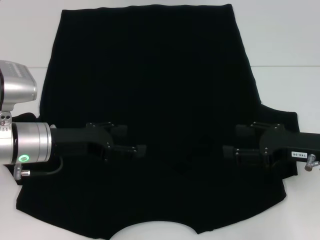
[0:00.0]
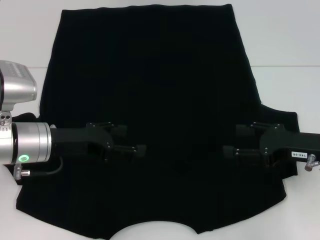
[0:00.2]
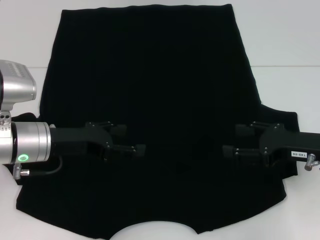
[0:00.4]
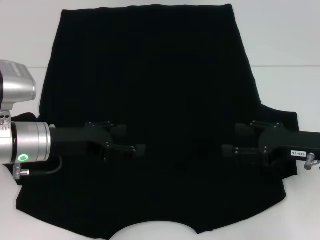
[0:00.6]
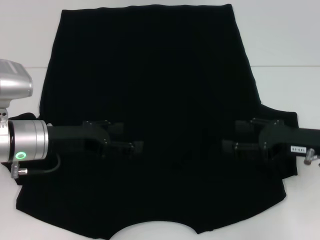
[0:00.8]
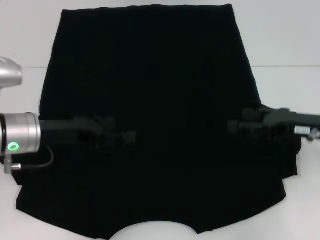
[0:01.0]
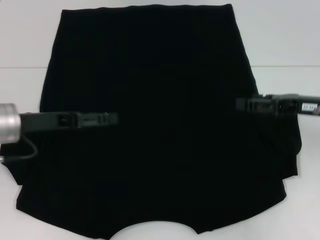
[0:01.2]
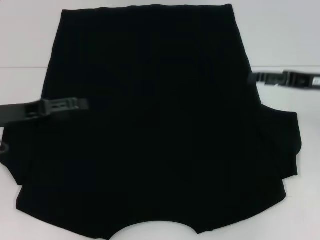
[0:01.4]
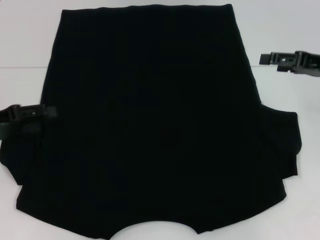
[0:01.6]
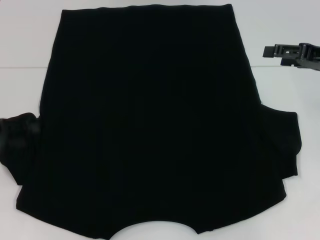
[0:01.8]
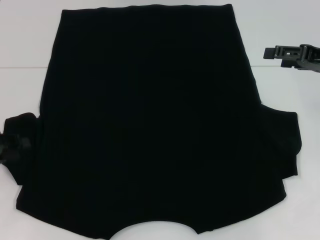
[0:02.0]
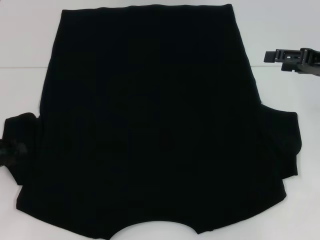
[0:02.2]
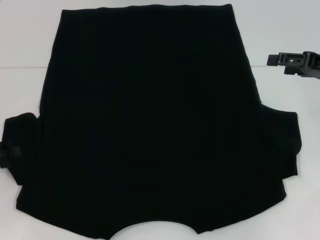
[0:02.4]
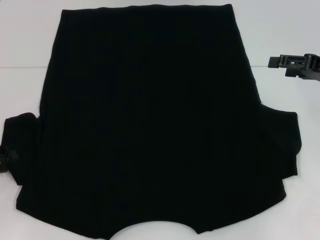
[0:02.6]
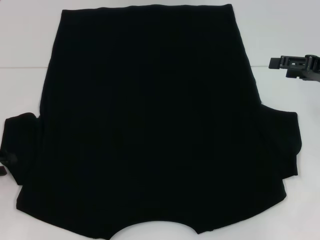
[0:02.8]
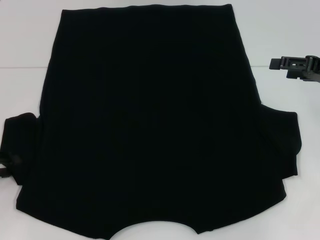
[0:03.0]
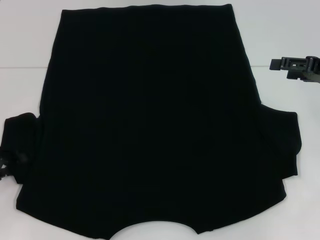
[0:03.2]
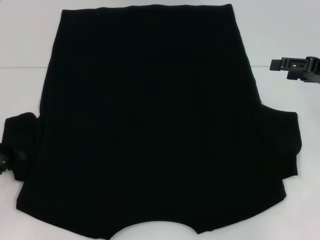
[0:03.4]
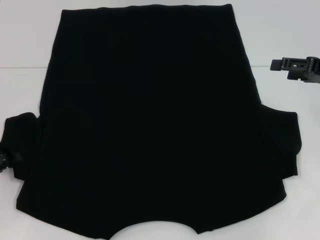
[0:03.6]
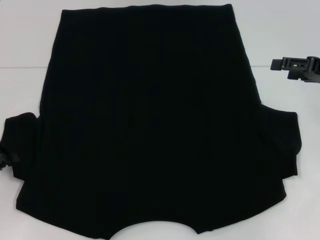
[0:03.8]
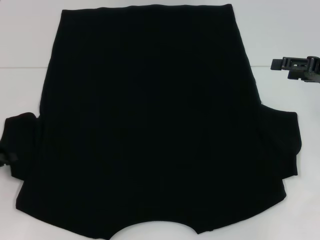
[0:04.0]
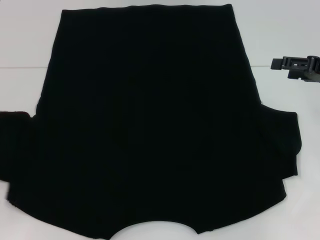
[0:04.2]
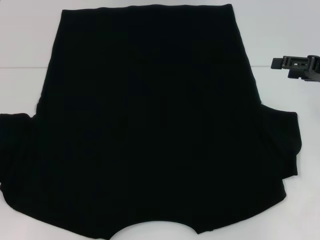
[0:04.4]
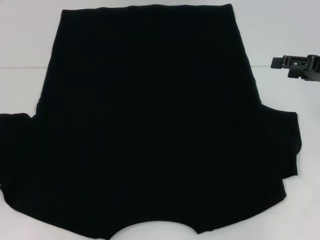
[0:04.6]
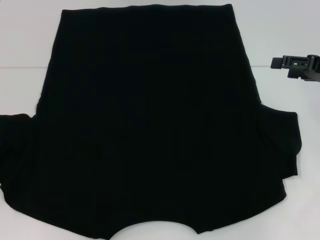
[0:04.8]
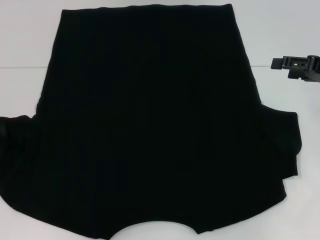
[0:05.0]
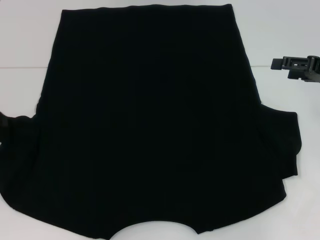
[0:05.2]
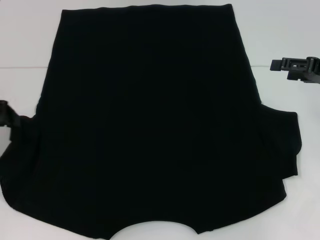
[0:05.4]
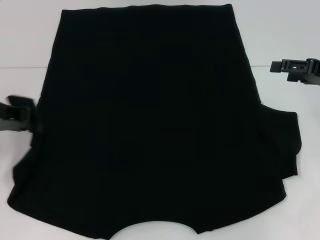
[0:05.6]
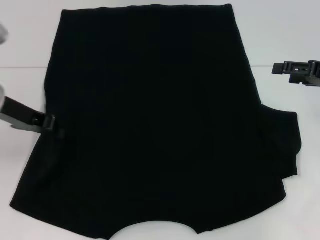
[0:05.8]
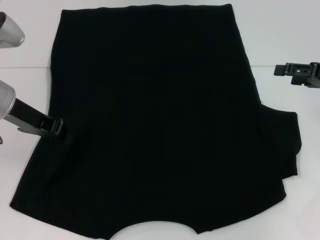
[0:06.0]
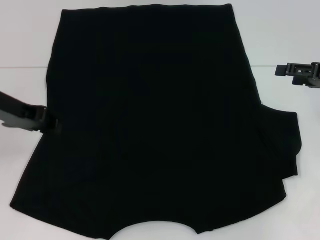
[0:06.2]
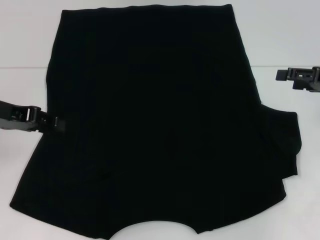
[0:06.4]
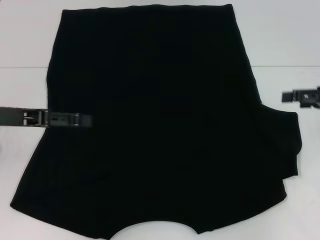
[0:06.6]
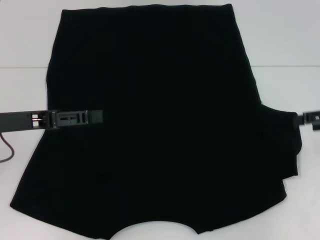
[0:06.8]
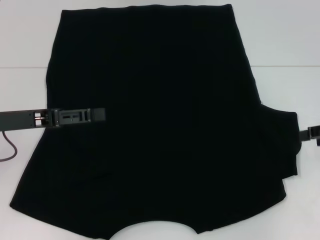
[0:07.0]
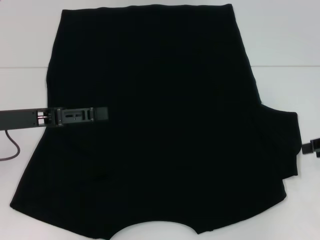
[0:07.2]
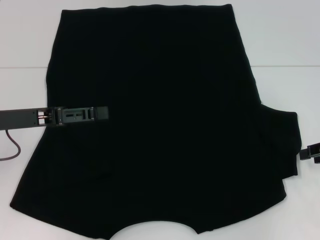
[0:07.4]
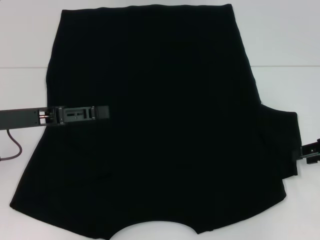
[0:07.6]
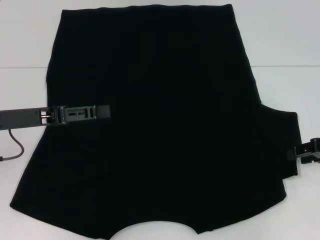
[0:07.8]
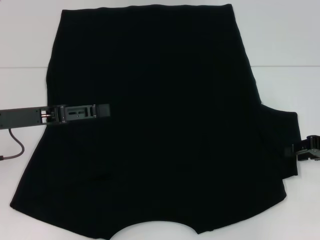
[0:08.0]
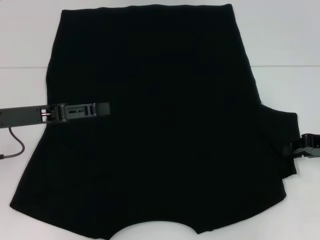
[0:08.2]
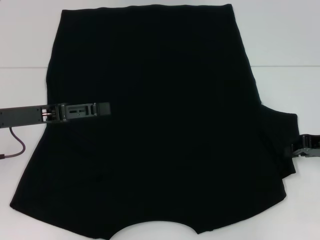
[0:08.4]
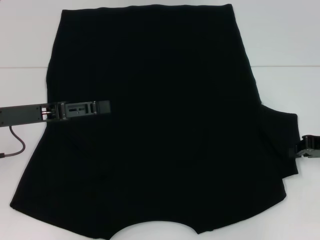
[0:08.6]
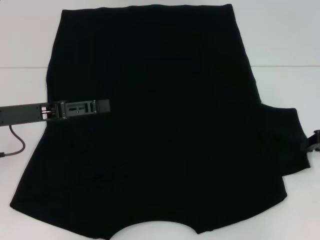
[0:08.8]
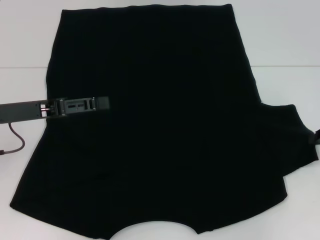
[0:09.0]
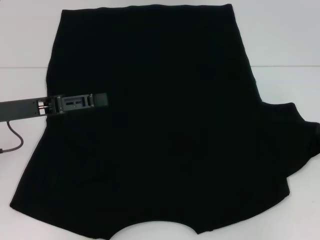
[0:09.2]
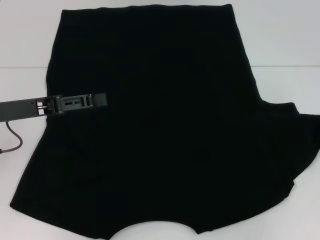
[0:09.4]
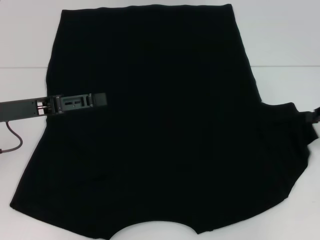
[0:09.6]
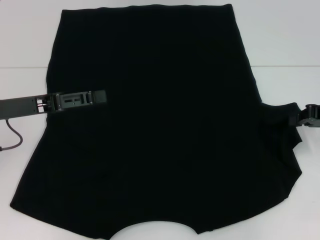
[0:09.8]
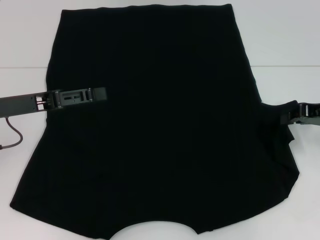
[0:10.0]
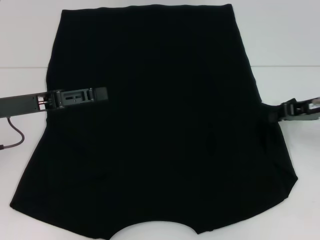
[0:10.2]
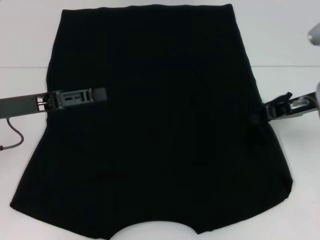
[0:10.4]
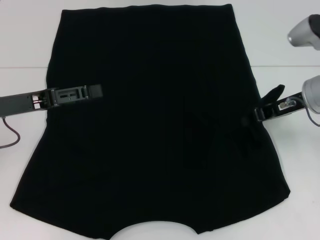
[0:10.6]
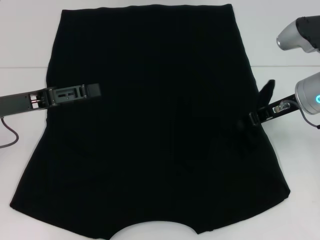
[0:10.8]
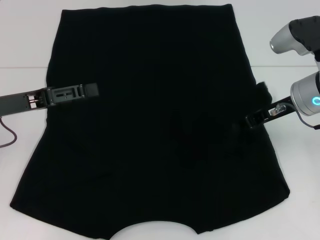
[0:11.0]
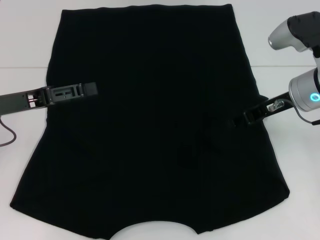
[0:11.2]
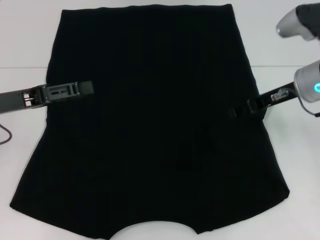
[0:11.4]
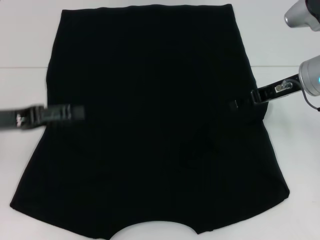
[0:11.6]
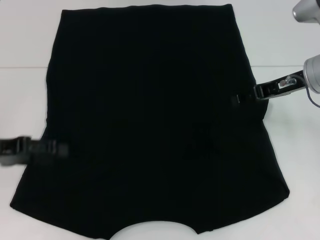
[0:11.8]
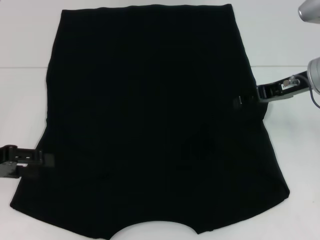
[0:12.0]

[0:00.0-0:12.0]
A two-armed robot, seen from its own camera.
Step, 0.0 to 6.0 s: Fold the bottom left sleeve with your left hand.
Step, 6.2 to 11.2 s: Fold the bottom right sleeve with your right hand.
0.0 to 1.6 s: The left gripper heads to the left, covering approximately 10 cm. Meanwhile the right gripper shifts roughly 10 cm forward and upward.
1.6 to 3.0 s: The left gripper shifts approximately 5 cm downward, and closes up.
3.0 to 4.4 s: The left gripper closes its fingers.
4.4 to 6.0 s: The left gripper travels to the right, upward and forward by about 20 cm.
6.0 to 7.6 s: The left gripper travels backward by approximately 5 cm, and opens its fingers, while the right gripper changes place by roughly 5 cm, and closes its fingers.
7.6 to 9.0 s: The right gripper closes.
9.0 to 10.4 s: The right gripper is displaced to the left by about 10 cm.
10.4 to 12.0 s: The right gripper opens its fingers. The left gripper travels to the left by approximately 5 cm.

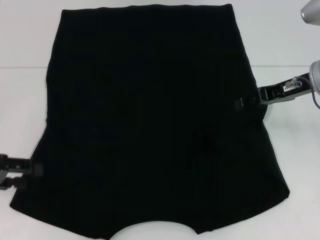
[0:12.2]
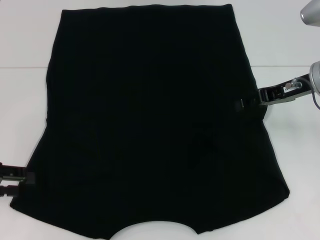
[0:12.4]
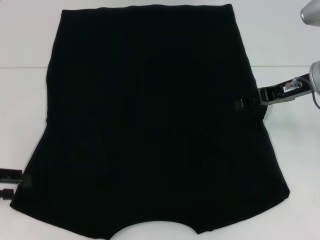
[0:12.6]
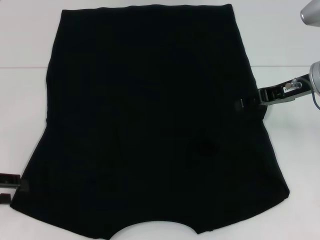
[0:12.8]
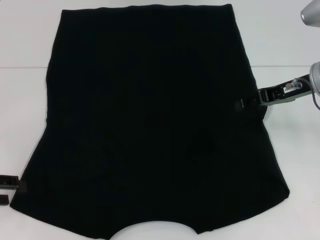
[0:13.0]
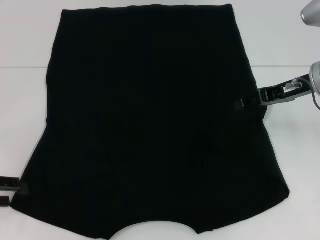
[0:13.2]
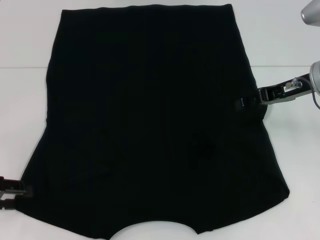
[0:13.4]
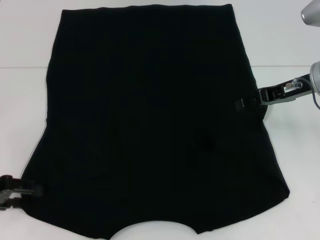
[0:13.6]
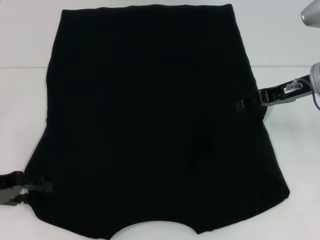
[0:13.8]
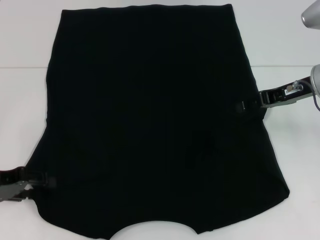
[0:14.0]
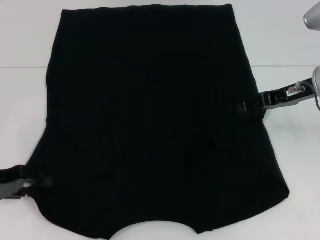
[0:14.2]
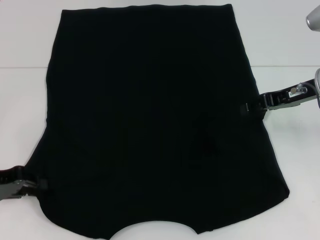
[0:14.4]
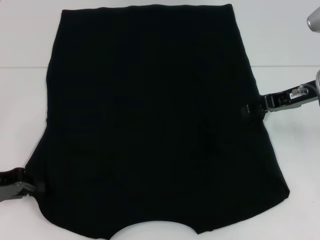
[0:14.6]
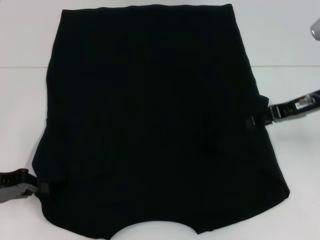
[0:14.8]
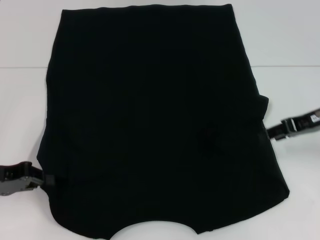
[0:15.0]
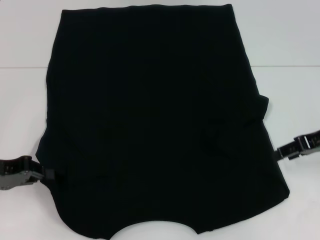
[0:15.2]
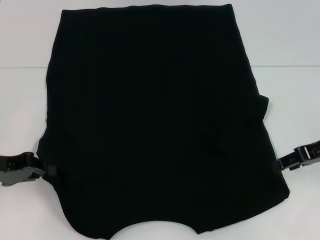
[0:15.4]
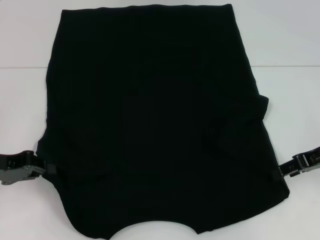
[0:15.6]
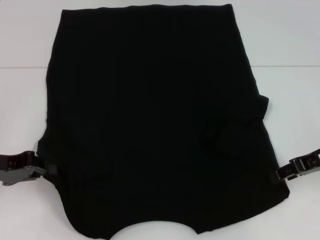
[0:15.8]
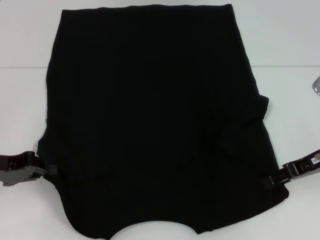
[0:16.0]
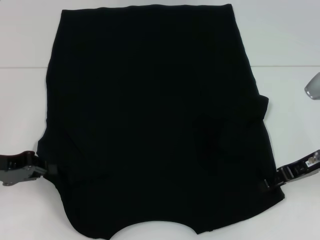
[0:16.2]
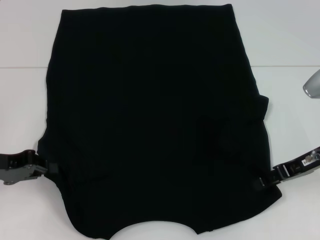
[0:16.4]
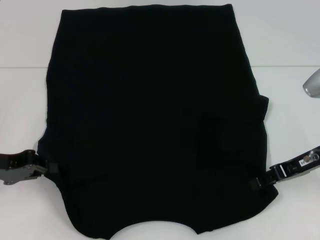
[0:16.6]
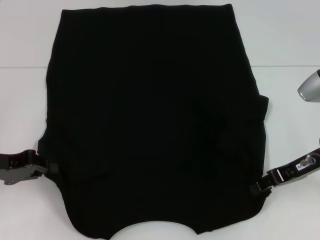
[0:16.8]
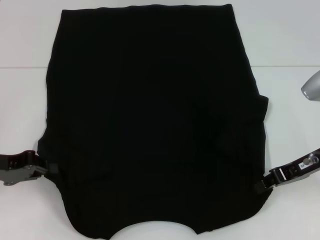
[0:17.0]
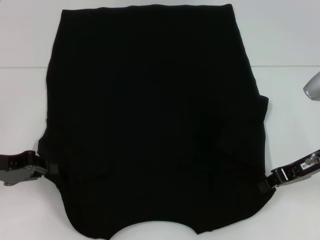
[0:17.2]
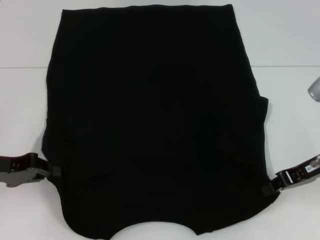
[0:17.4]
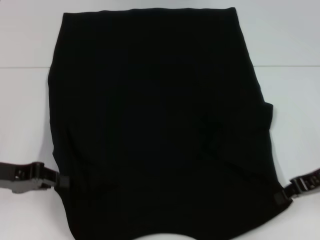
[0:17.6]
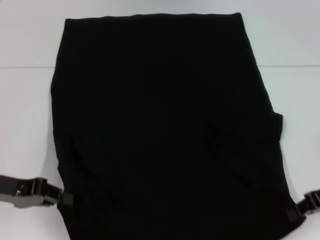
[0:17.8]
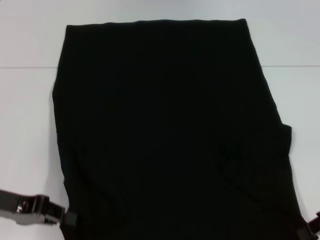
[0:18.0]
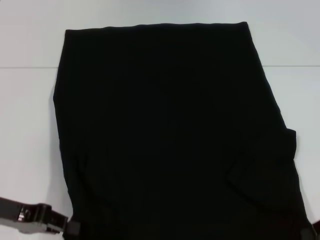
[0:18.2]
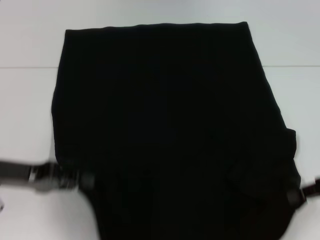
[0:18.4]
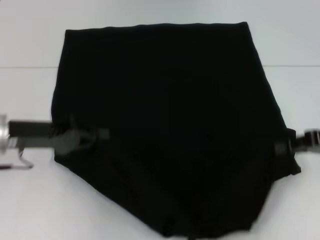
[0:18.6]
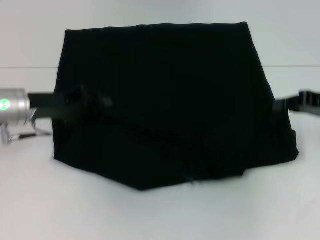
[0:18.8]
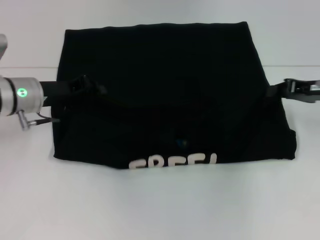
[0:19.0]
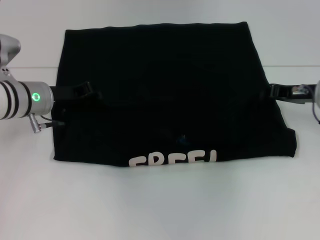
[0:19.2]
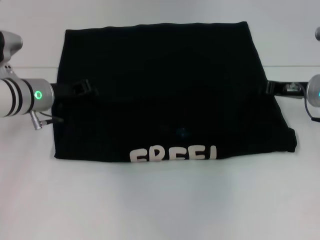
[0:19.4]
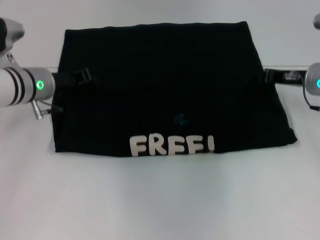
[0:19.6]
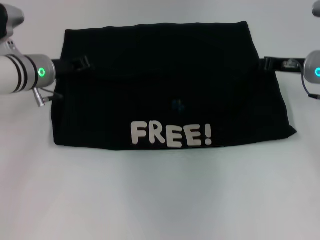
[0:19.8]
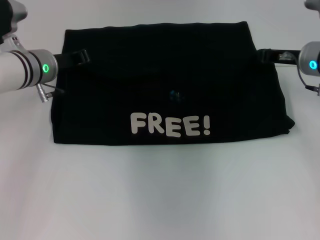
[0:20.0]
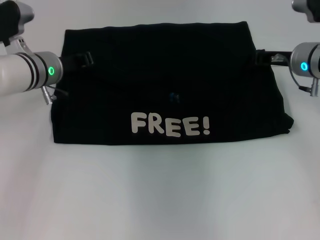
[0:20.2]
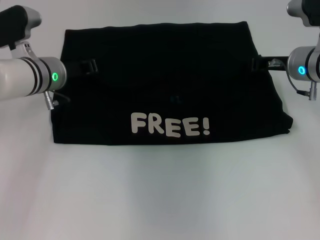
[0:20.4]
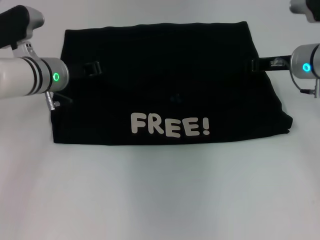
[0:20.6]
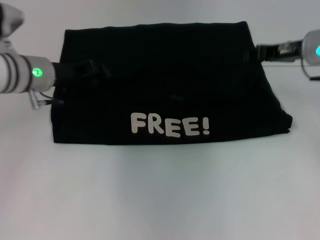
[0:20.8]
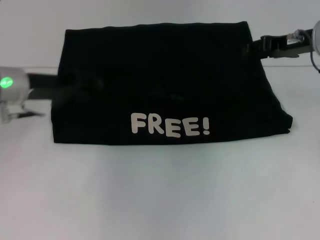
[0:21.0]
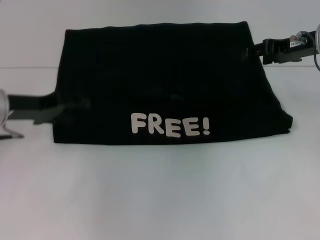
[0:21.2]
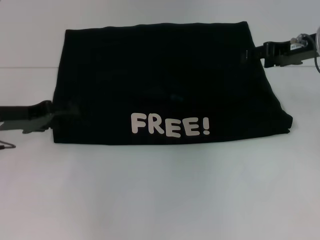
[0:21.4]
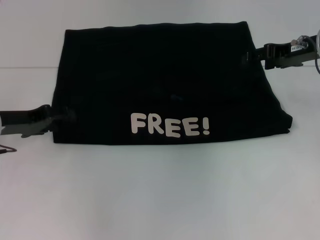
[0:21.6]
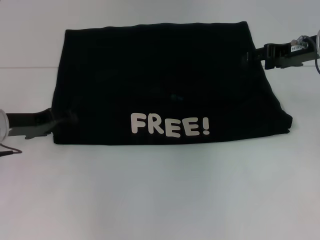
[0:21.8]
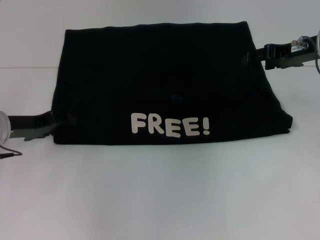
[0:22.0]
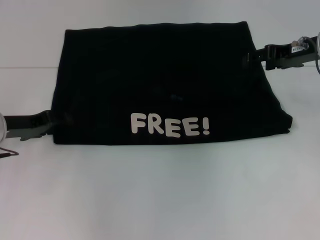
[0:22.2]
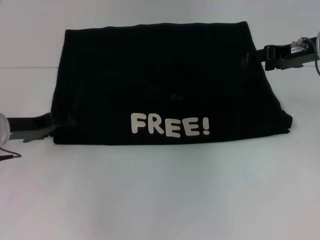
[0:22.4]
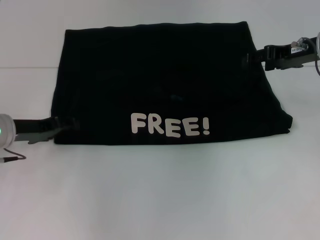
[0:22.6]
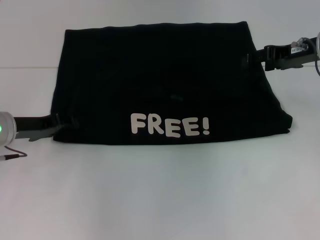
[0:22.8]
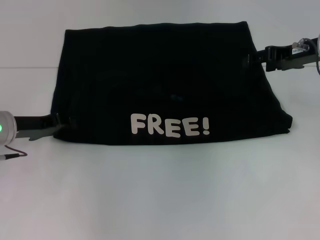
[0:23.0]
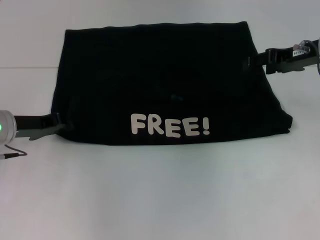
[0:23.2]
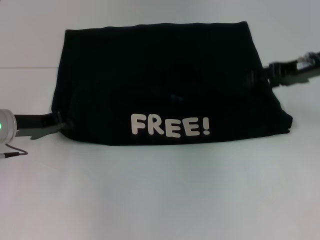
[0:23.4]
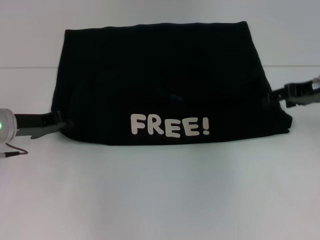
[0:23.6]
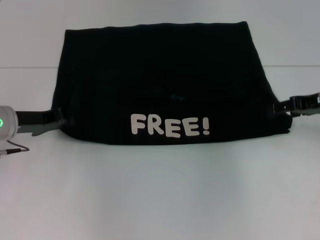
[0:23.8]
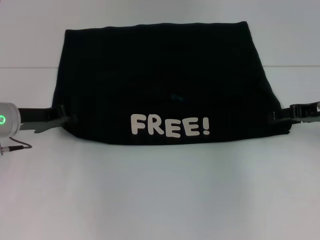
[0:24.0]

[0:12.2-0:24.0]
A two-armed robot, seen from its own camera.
Step, 12.2 to 14.4 s: Grab the bottom left corner with your left hand.
Step, 14.6 to 17.4 s: Grab the bottom right corner with your right hand.
Step, 17.6 to 20.8 s: Fold the clothes with your left hand.
Step, 17.6 to 20.8 s: Fold the clothes with your right hand.
12.2 to 13.6 s: The grippers move only a little.
13.6 to 15.2 s: The right gripper travels to the right by some 5 cm; the left gripper closes its fingers.
15.2 to 16.6 s: The right gripper changes place by approximately 5 cm.
16.6 to 18.2 s: The right gripper travels backward and to the right by some 10 cm, and closes its fingers.
18.2 to 19.6 s: The left gripper shifts about 20 cm forward and to the right, while the right gripper is displaced forward and to the left by some 20 cm.
19.6 to 21.0 s: The right gripper goes some 10 cm upward, and opens up, while the left gripper moves approximately 5 cm.
21.0 to 22.6 s: The right gripper opens up; the left gripper moves downward, roughly 5 cm, and opens its fingers.
22.6 to 24.0 s: The left gripper closes its fingers. Meanwhile the right gripper shifts some 5 cm downward.
